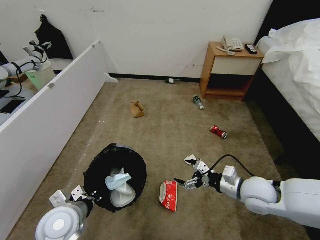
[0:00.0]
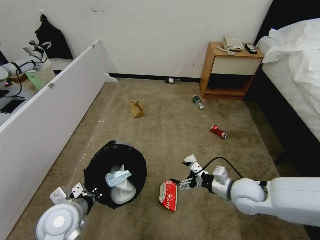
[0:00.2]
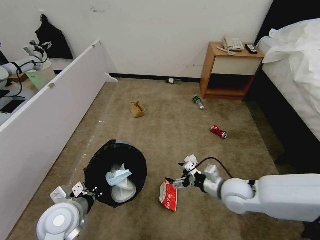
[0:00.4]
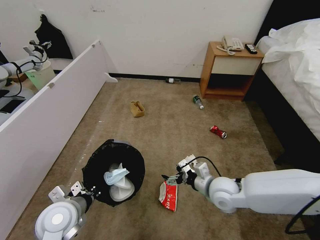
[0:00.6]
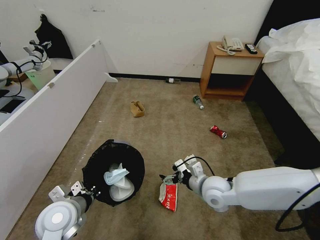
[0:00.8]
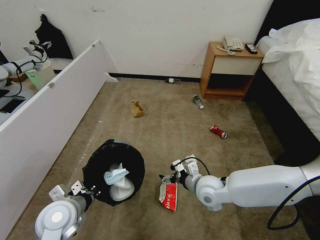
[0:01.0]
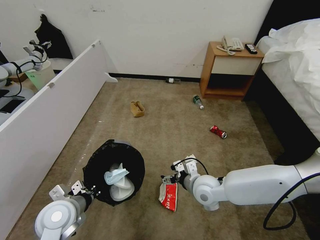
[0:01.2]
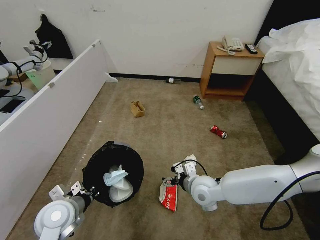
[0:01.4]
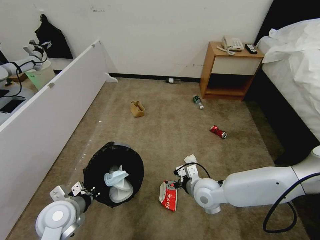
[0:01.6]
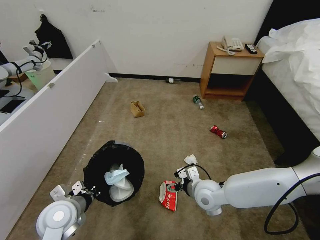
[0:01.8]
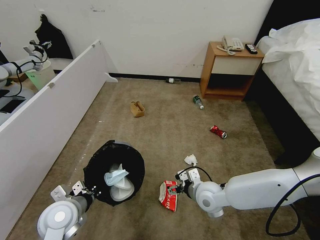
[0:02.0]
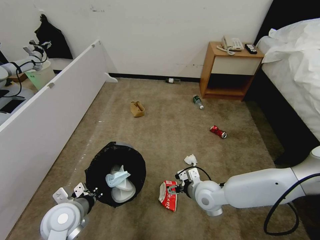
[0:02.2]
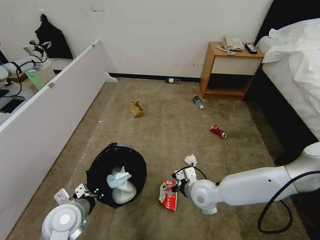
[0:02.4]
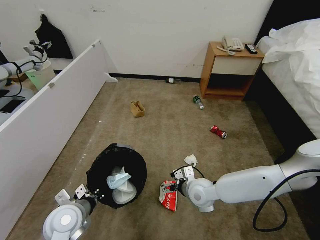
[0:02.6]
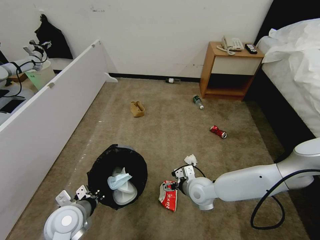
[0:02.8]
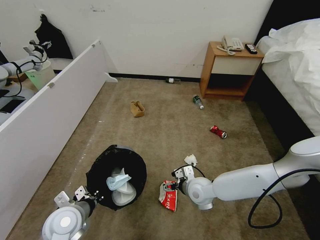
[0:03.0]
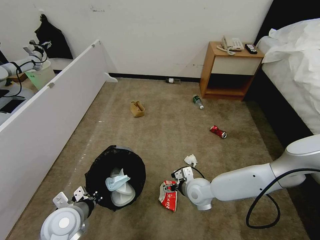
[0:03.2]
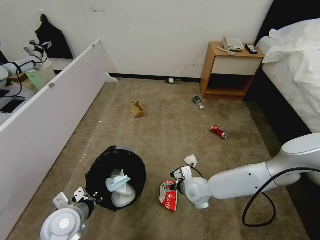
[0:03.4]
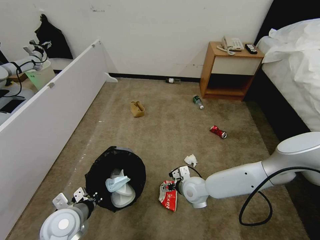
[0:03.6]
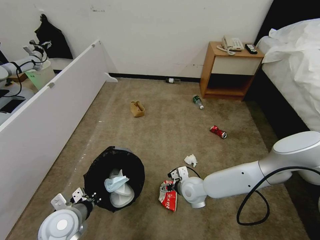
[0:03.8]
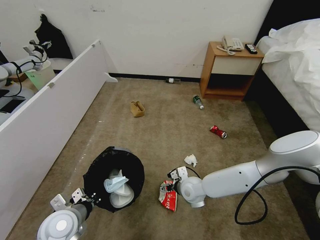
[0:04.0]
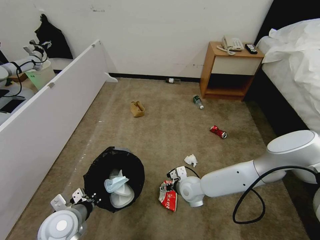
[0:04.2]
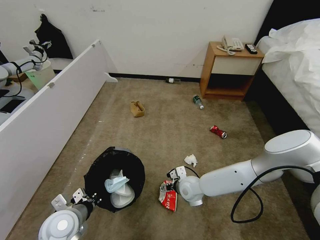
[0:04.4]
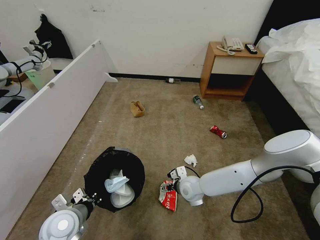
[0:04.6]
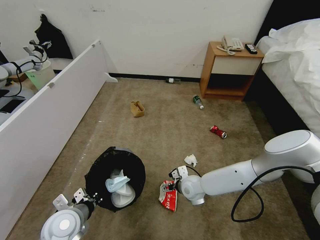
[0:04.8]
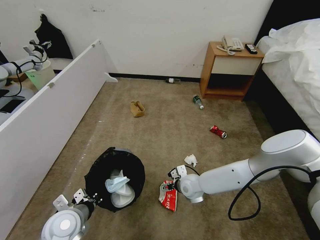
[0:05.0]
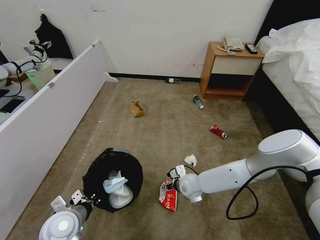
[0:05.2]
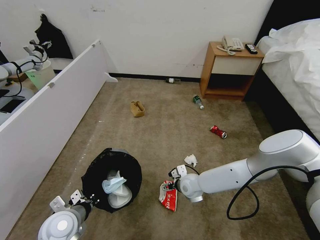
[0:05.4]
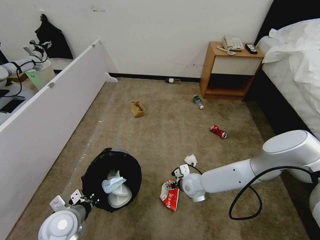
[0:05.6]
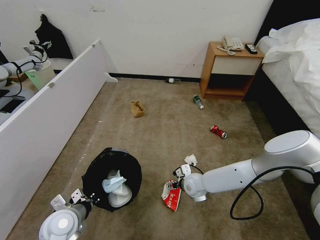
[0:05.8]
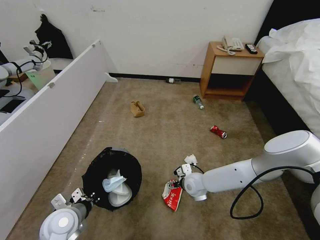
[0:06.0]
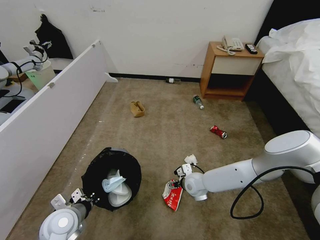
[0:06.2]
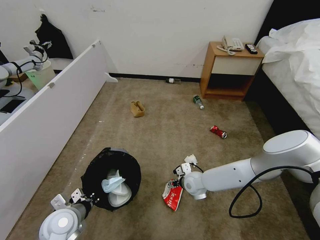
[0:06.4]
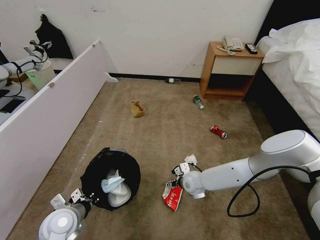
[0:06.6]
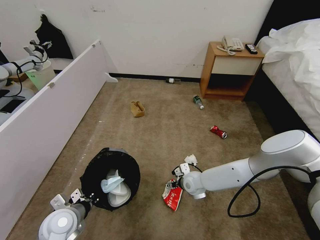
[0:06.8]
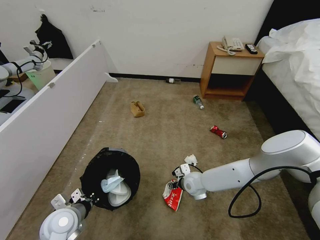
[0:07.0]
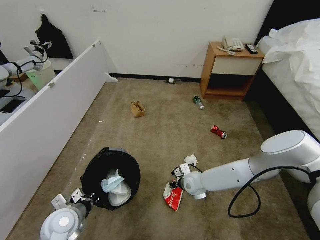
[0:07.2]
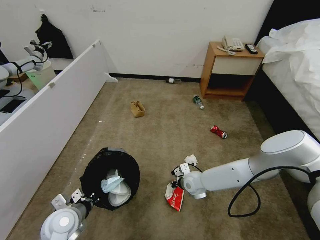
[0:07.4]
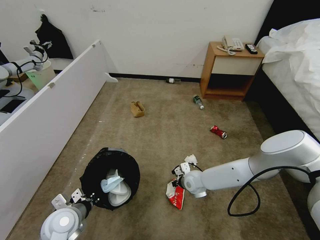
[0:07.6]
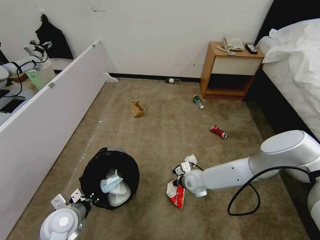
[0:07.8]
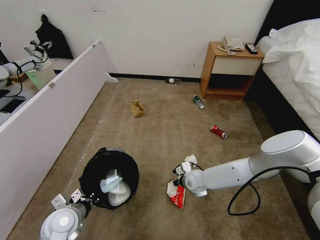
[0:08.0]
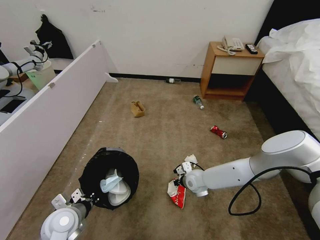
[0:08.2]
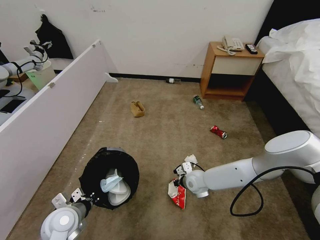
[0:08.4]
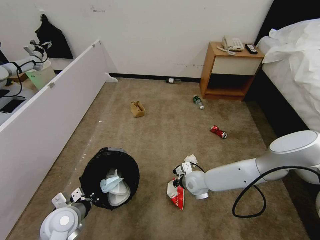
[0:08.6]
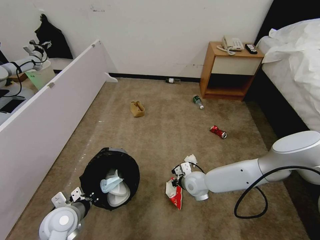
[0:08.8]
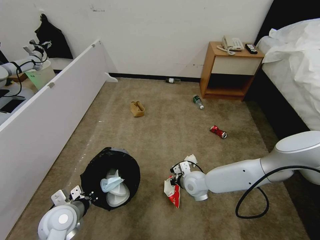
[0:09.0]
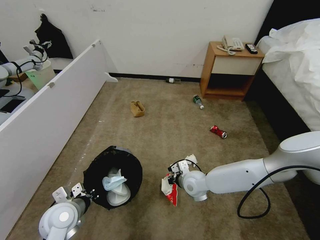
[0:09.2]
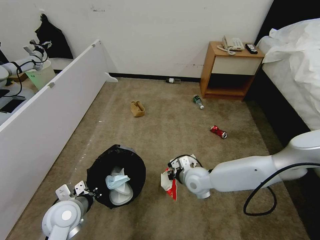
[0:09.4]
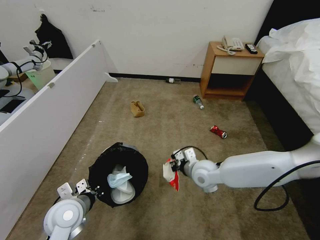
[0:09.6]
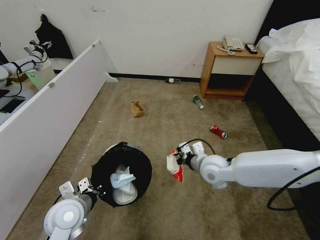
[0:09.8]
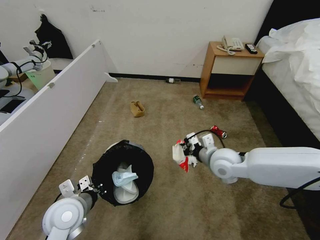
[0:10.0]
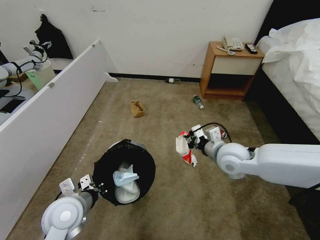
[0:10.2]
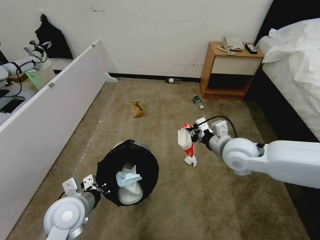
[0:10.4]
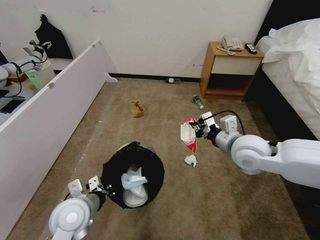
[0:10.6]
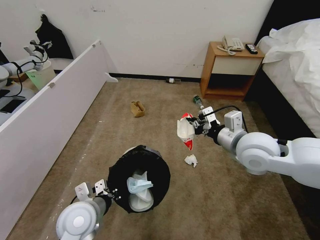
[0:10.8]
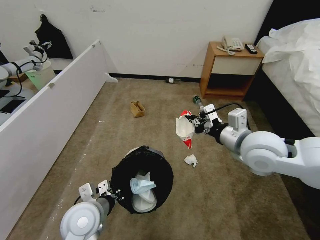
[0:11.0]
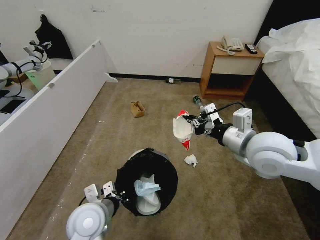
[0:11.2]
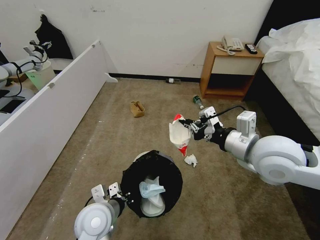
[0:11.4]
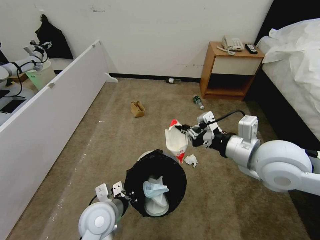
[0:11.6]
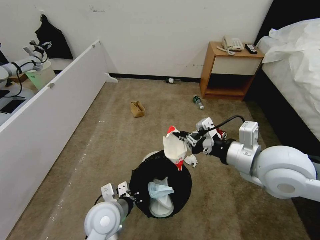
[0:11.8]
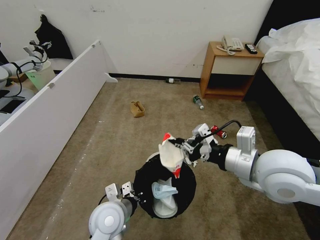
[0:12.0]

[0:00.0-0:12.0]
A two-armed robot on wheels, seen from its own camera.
Task of the whole recording: Pick up the trash bin and place the garbage on the floor into it.
0:00.0 to 0:01.6: The right gripper shifts roughly 15 cm to the left and downward.
0:01.6 to 0:03.0: The grippers make only small movements.
0:03.0 to 0:04.4: The grippers make only small movements.
0:04.4 to 0:06.0: The grippers make only small movements.
0:06.0 to 0:07.6: The right gripper closes.
0:07.6 to 0:09.0: The grippers stay close to where they were, moving slightly.
0:09.0 to 0:10.4: The left gripper heads upward, covering approximately 5 cm; the right gripper travels upward and to the right by roughly 20 cm.
0:10.4 to 0:12.0: The left gripper travels to the right by approximately 10 cm. The right gripper travels backward and upward by approximately 15 cm.

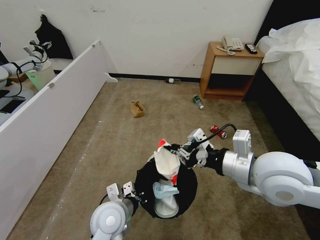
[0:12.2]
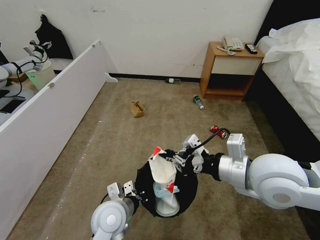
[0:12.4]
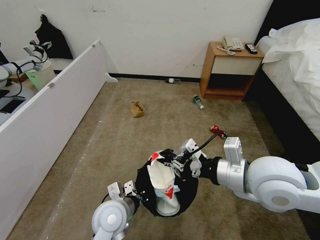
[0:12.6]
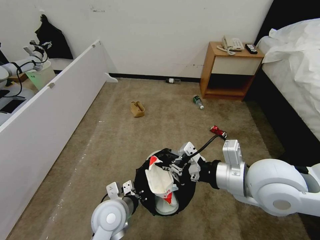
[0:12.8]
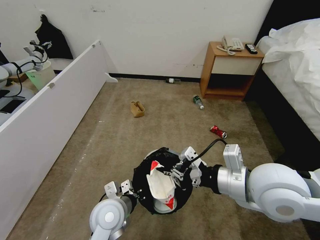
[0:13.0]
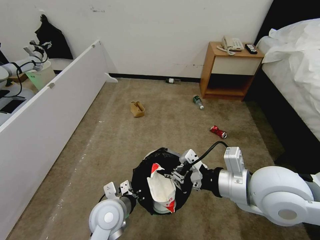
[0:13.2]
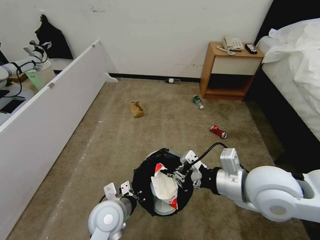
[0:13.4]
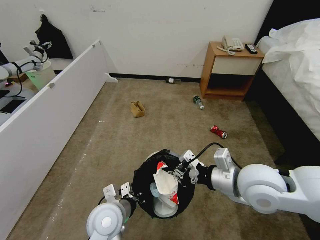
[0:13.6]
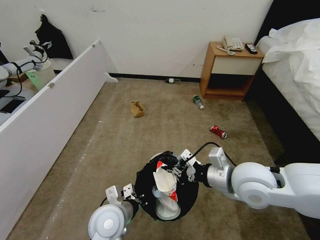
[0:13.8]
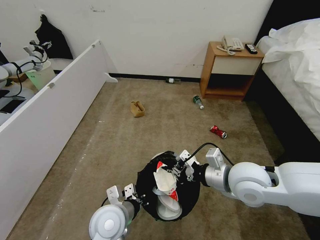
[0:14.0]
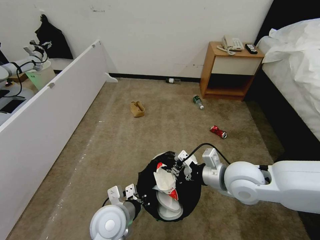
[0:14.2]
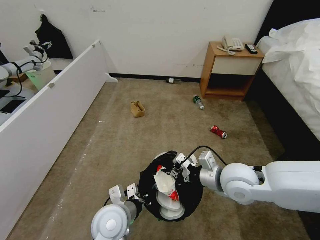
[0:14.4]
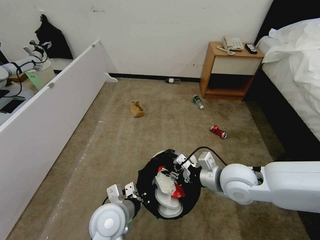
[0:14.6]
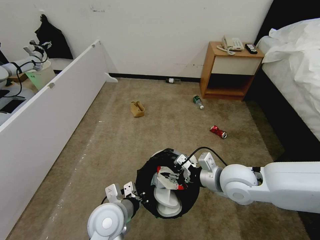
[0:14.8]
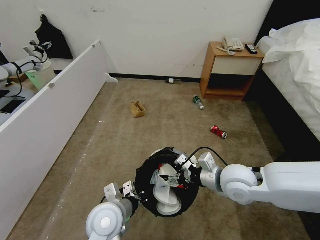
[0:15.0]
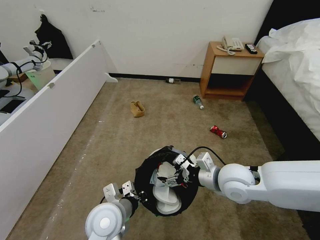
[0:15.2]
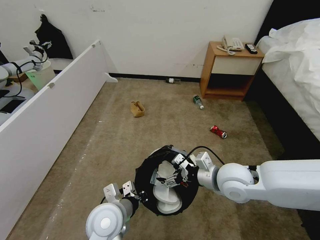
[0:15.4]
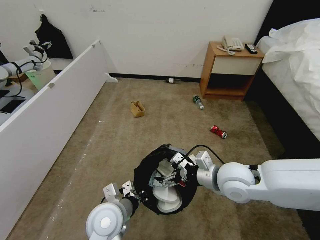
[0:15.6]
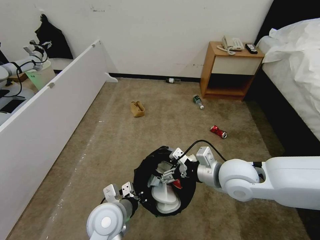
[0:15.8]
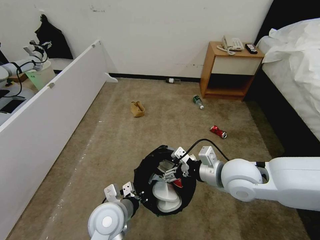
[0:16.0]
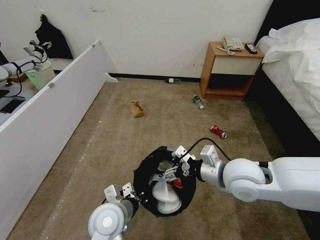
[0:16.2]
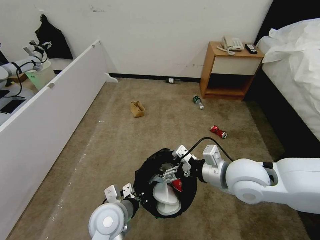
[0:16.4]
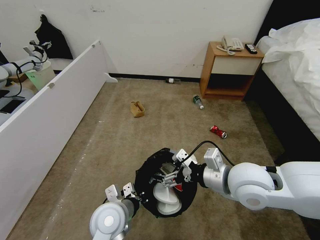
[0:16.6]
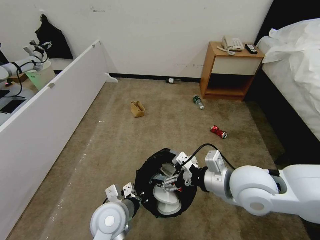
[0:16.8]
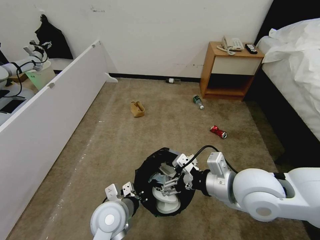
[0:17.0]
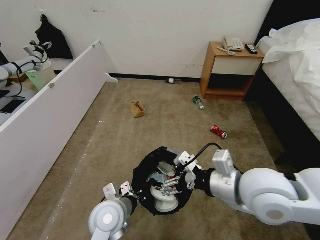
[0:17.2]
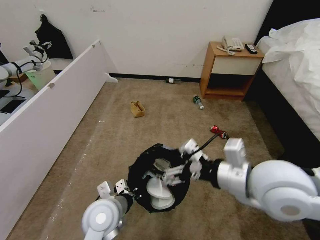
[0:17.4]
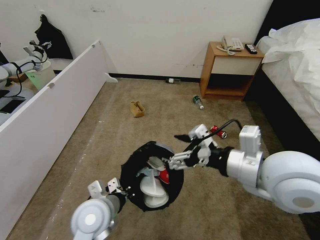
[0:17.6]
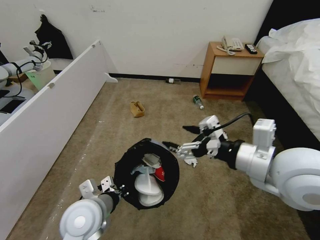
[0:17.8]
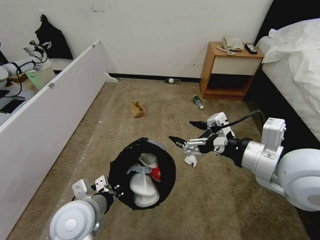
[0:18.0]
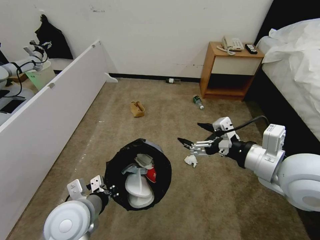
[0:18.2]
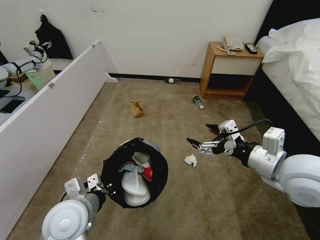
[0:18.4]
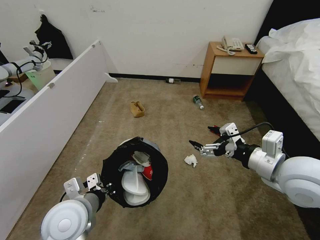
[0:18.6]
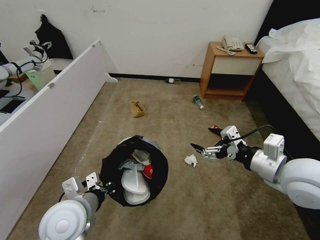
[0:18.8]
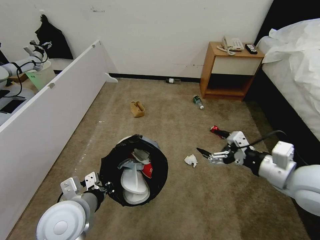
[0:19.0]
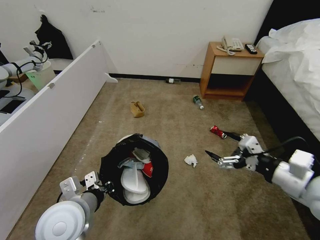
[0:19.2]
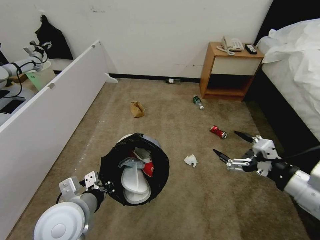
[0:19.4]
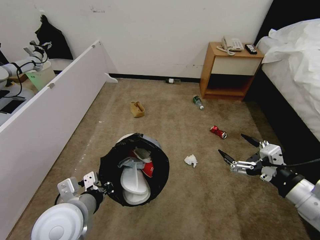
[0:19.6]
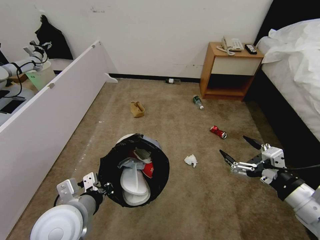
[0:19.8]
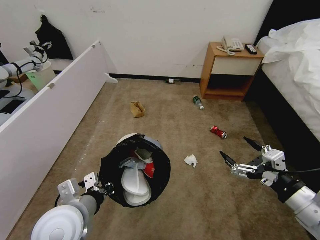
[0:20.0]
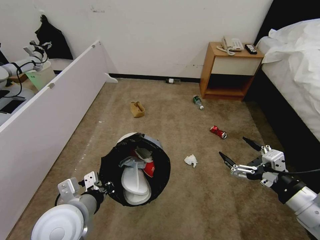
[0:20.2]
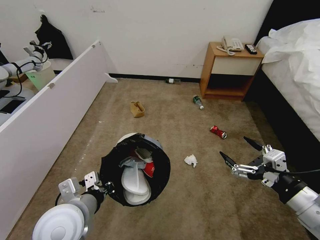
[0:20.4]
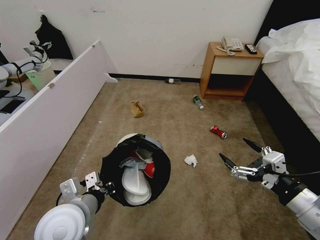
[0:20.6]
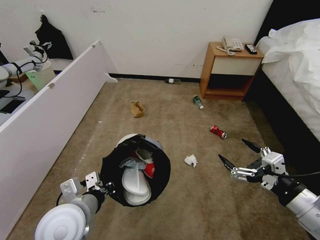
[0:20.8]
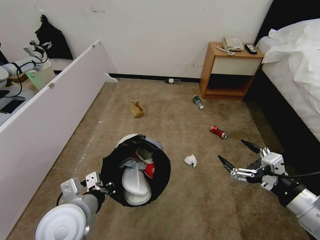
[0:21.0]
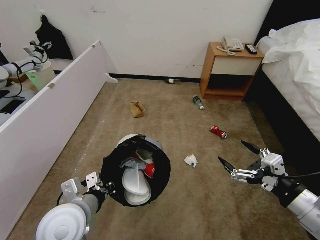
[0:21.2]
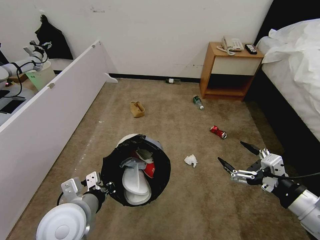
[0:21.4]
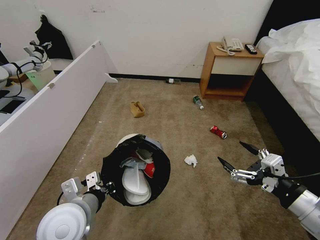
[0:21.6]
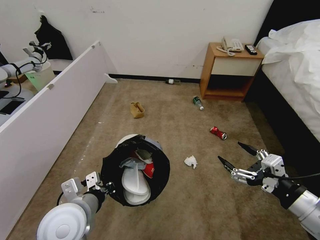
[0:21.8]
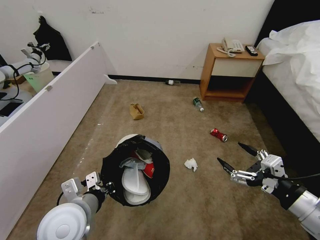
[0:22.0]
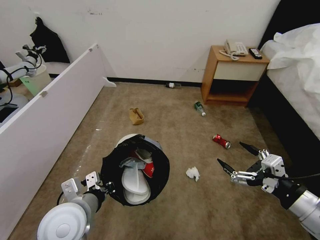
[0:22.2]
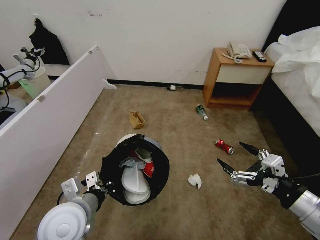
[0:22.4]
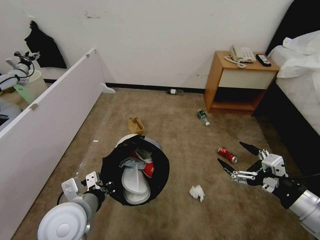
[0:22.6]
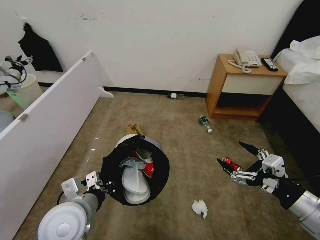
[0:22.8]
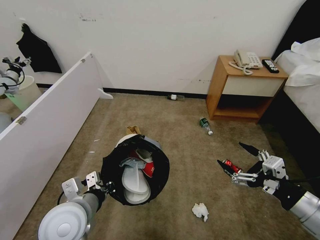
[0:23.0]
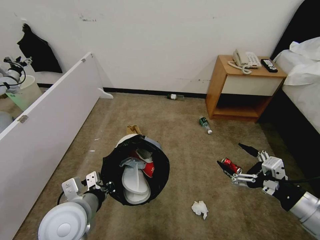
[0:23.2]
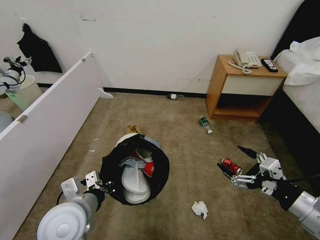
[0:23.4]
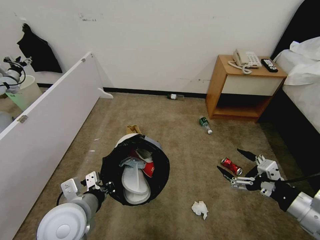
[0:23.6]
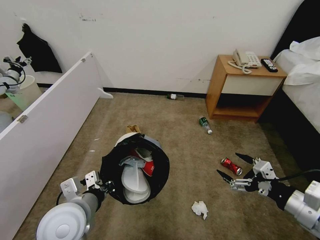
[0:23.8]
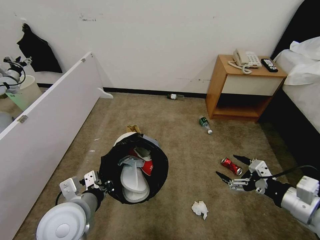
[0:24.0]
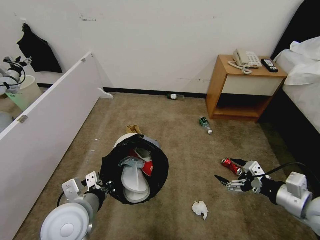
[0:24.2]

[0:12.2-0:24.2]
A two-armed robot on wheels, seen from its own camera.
Task of the whole recording: Pick up the trash bin and place the garbage on the floor into it.
0:12.2 to 0:13.8: The right gripper is displaced downward by roughly 5 cm.
0:13.8 to 0:15.2: The right gripper goes roughly 5 cm downward, and opens up.
0:15.2 to 0:16.6: The right gripper is displaced upward by some 5 cm.
0:16.6 to 0:18.2: The right gripper shifts roughly 10 cm upward and to the right. Meanwhile the left gripper heads to the left and upward, covering some 10 cm.
0:18.2 to 0:19.8: The right gripper shifts approximately 15 cm to the right, backward and downward.
0:19.8 to 0:21.2: Both grippers stay put.
0:22.6 to 0:24.2: The right gripper shifts some 5 cm forward.
